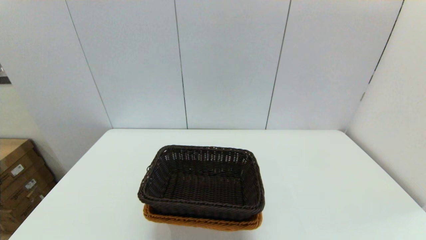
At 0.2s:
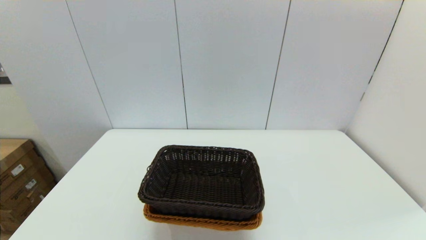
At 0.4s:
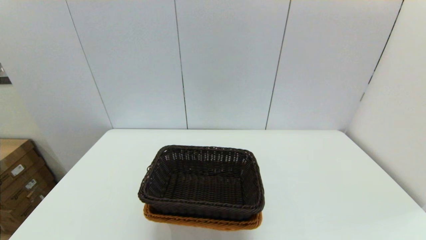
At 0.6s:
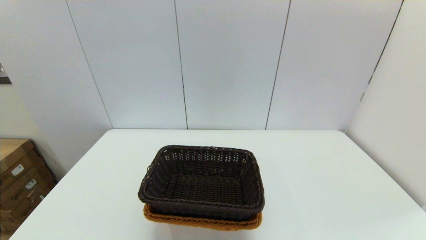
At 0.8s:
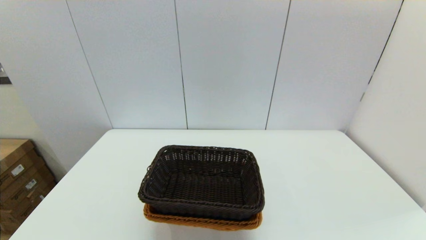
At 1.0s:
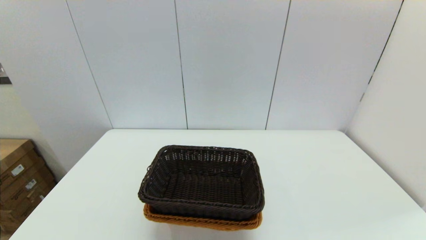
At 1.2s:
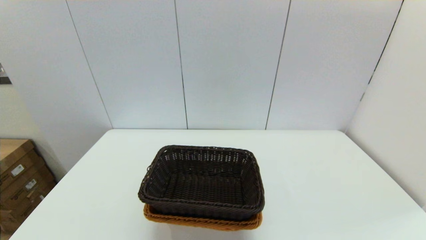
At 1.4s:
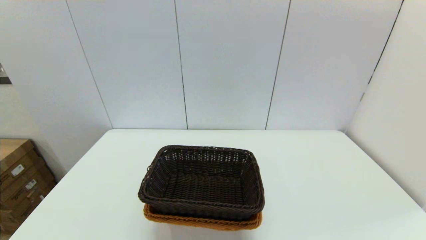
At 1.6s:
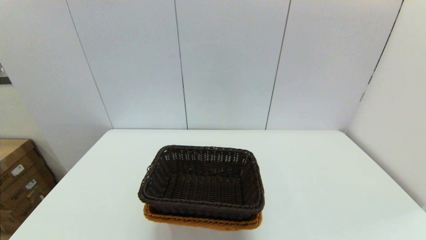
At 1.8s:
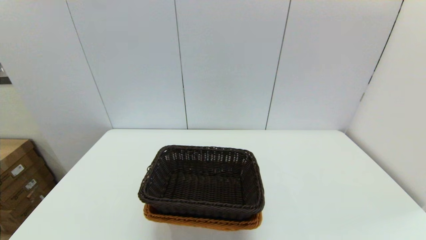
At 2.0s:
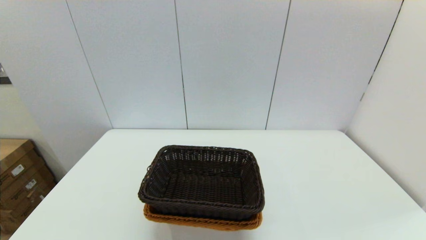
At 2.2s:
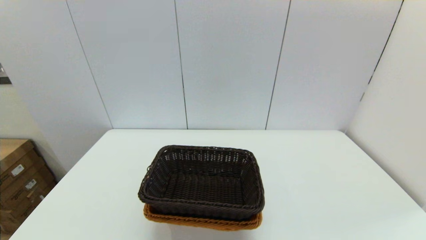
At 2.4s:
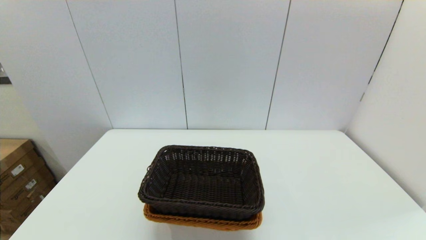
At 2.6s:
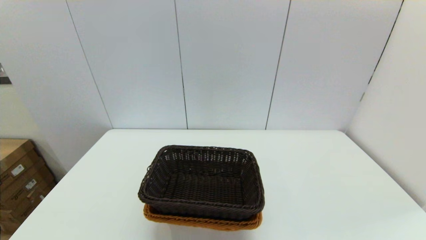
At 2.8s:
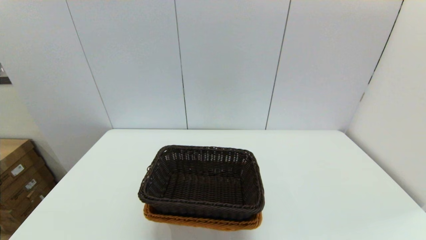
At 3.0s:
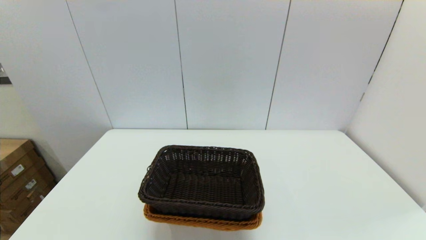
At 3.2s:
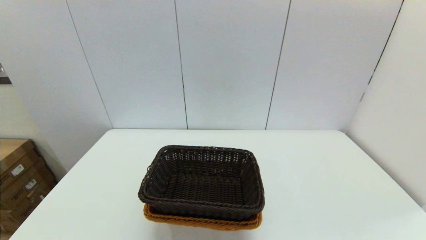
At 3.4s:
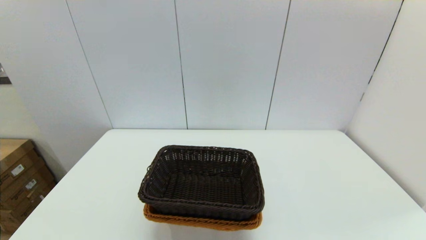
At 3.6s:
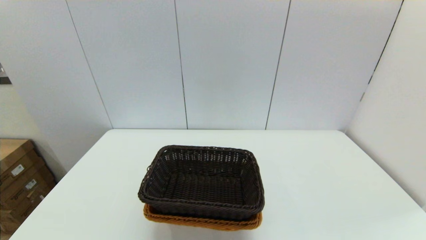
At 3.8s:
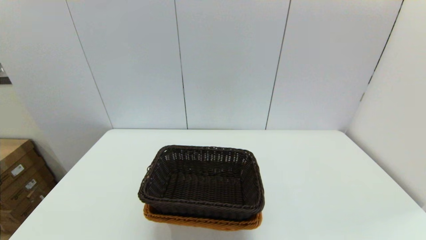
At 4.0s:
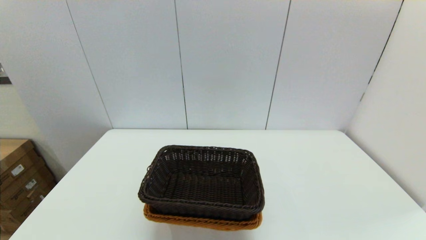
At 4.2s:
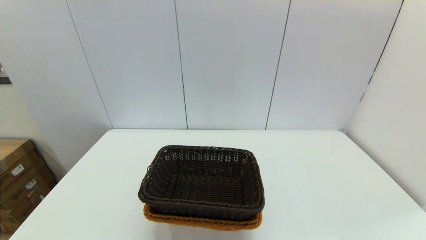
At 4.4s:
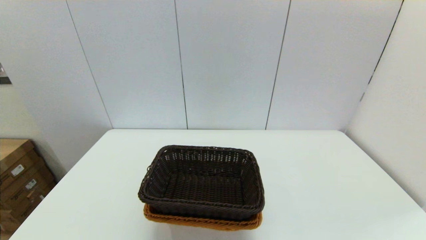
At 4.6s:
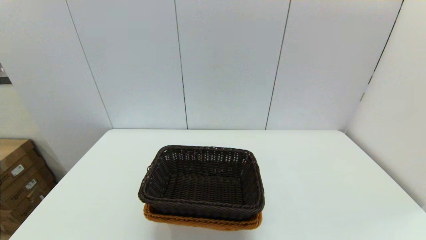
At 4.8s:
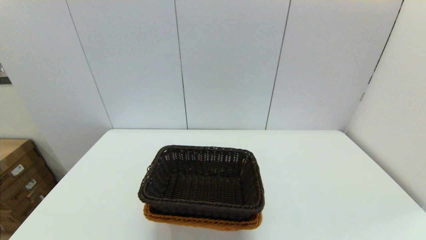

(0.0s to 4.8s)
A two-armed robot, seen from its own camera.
Task of the whole recording: stack a basket on top of another basket.
3.2s - 4.8s: Both grippers stay about where they are.
